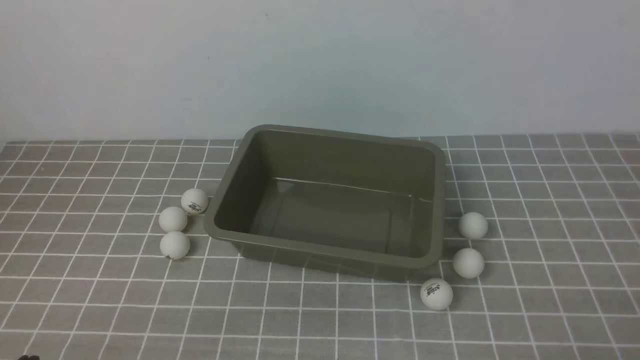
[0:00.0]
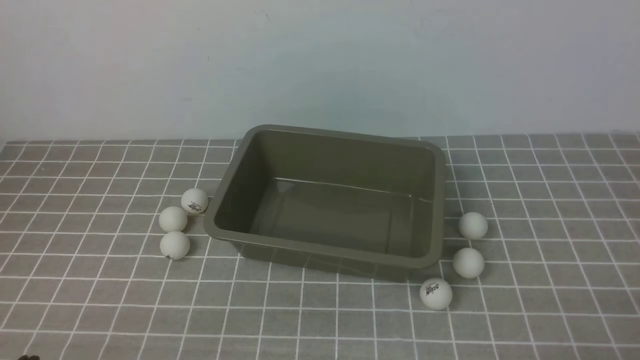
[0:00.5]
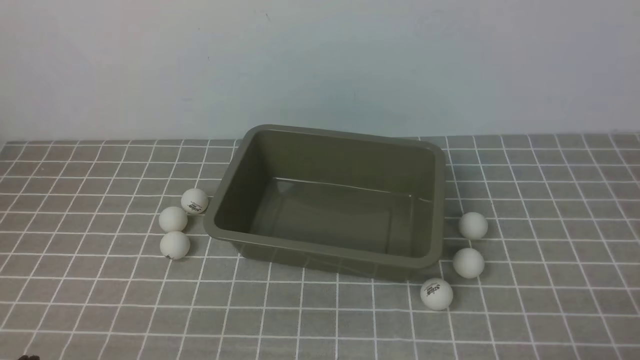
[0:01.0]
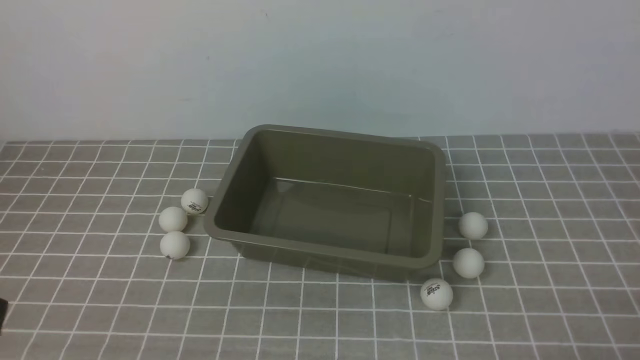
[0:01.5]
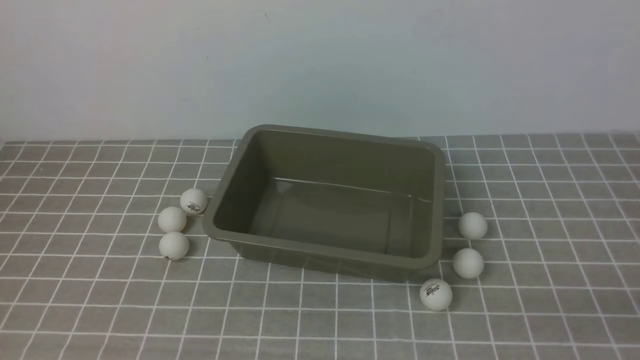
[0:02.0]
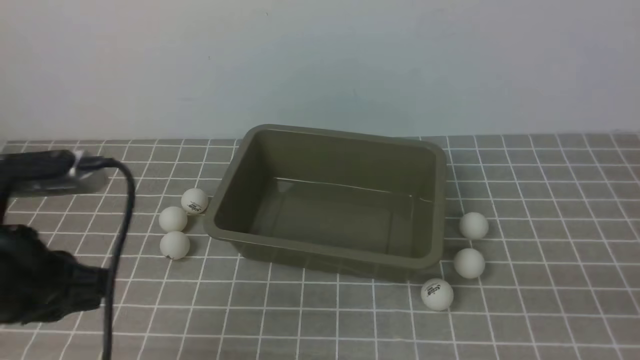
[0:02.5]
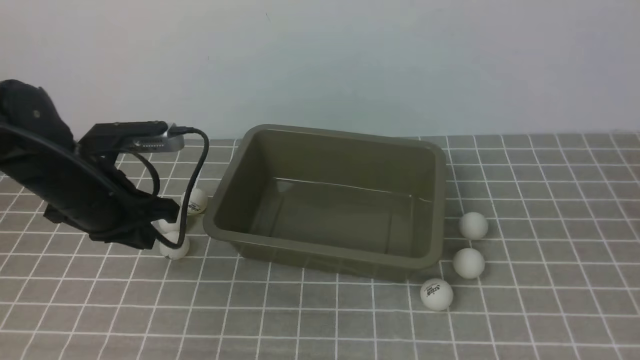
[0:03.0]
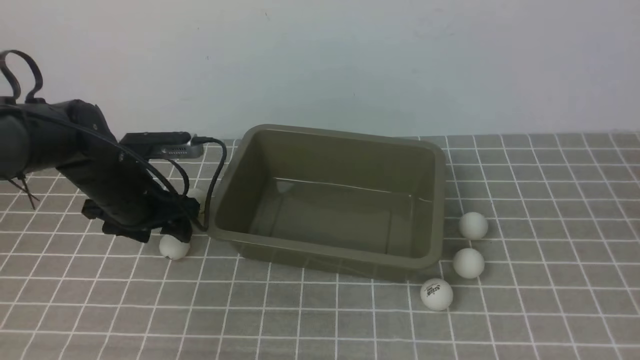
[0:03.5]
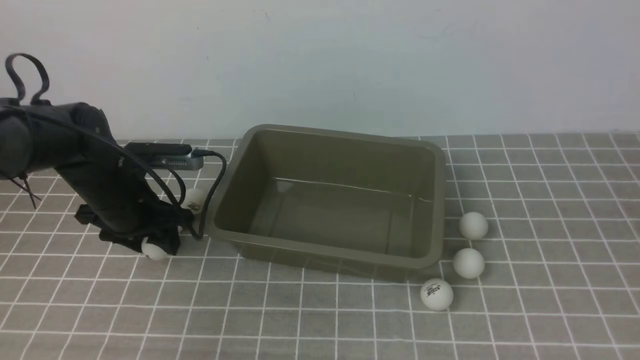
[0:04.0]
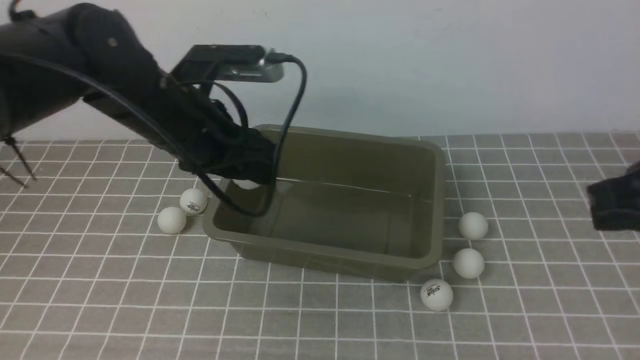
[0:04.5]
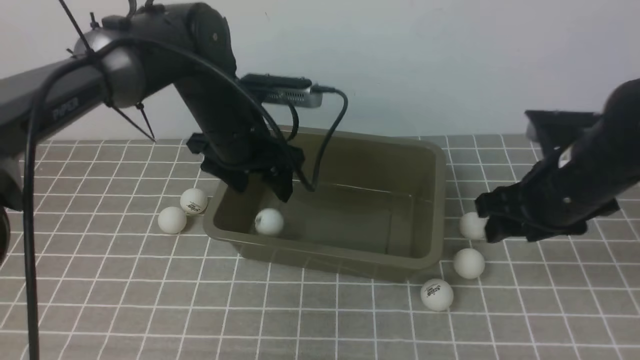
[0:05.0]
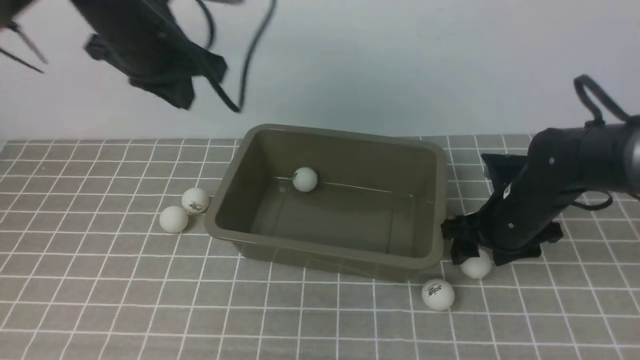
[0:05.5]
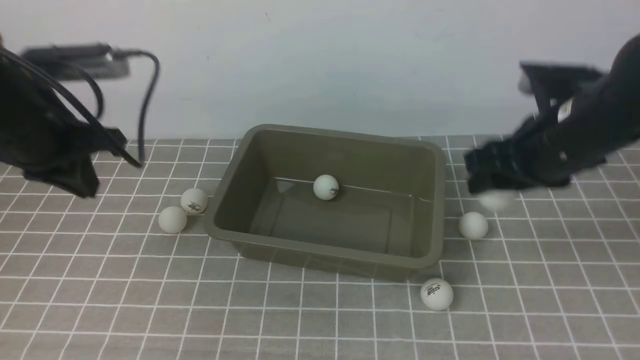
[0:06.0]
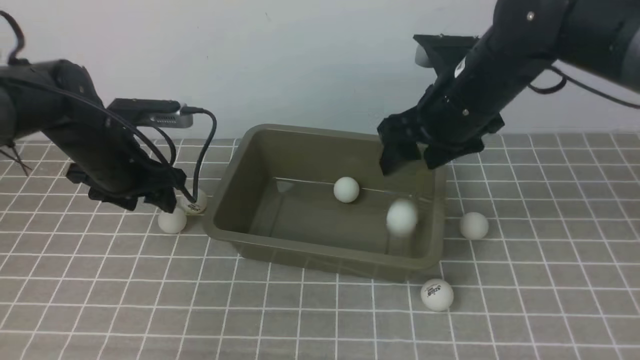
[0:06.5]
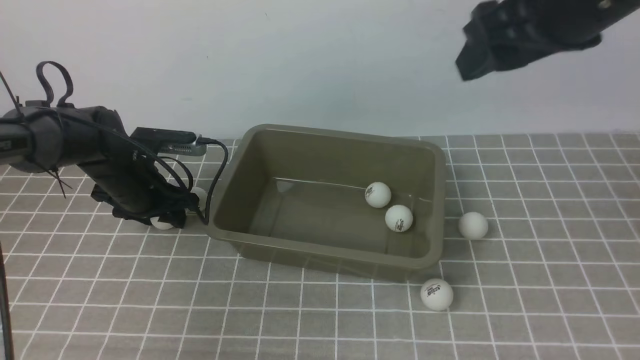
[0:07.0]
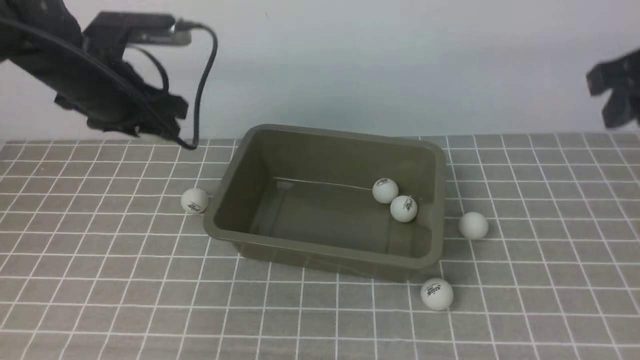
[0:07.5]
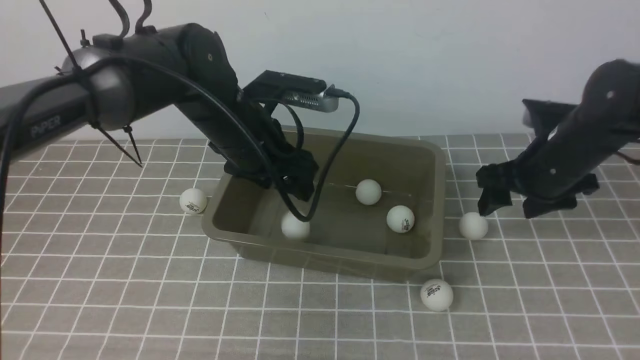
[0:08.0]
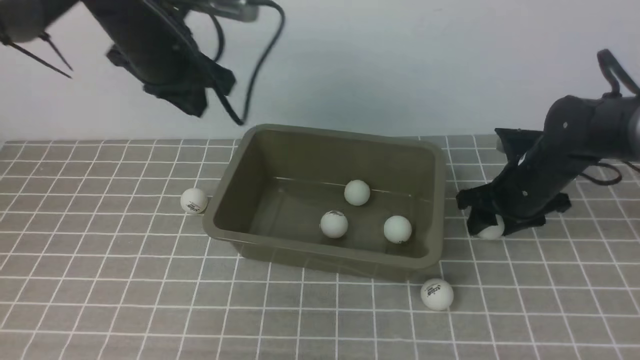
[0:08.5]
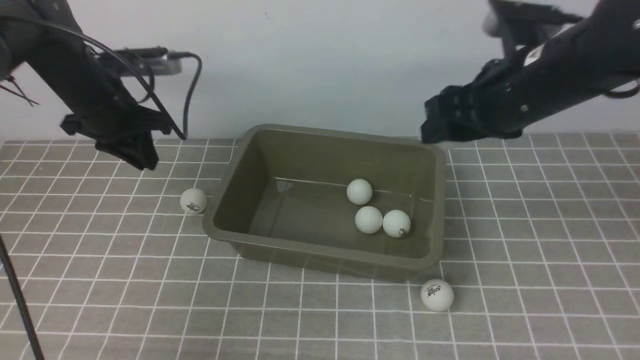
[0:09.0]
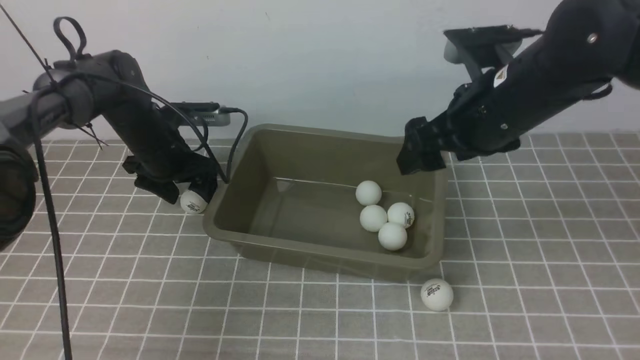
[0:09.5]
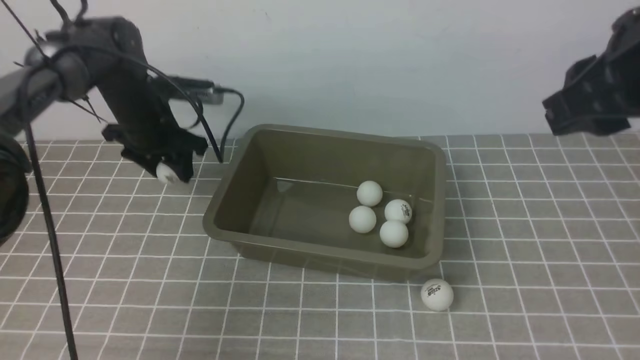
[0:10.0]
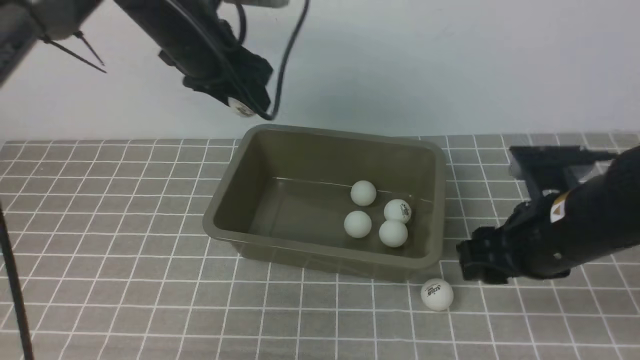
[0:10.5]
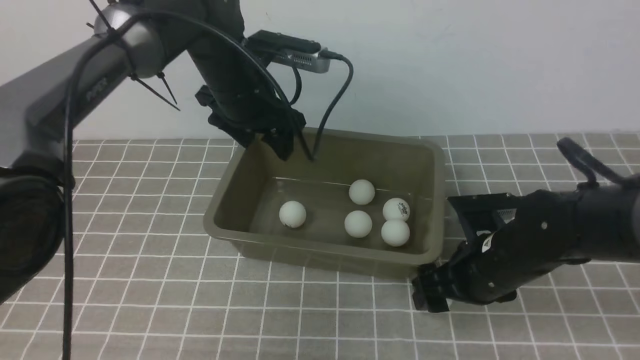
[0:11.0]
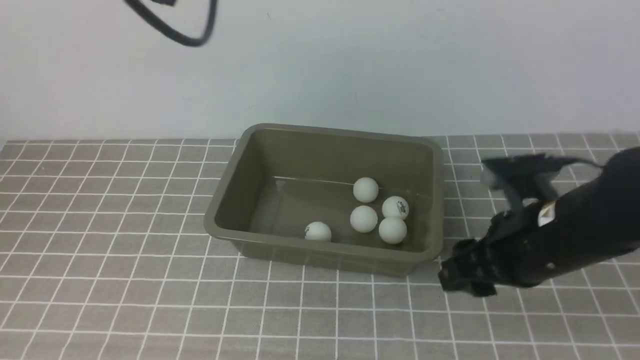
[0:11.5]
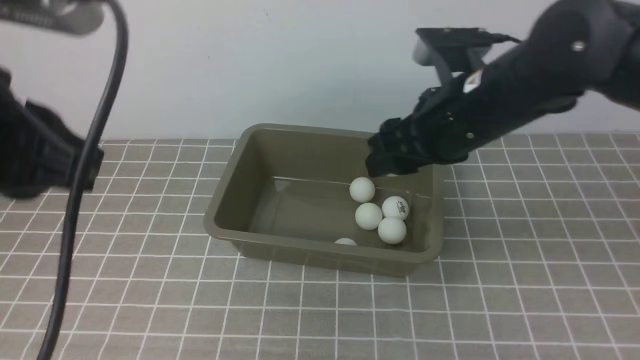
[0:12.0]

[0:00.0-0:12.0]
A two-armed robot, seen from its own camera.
Step, 0:00.0 to 0:04.0: use the left arm to clamp the table tennis ball closest to it.
Step, 0:04.5 to 0:05.0: use the left arm to put the table tennis ball into the box.
Step, 0:06.0 to 0:06.5: use the right arm to put the table tennis ball into the box.
Step, 0:07.5 to 0:08.0: use the left arm to put the table tennis ball into the box.
Step, 0:09.5 to 0:10.0: use the left arm to clamp the table tennis ball closest to it.
Step, 0:11.0 to 0:11.5: use the right arm to clamp the table tennis ball closest to it.
0:02.0 to 0:04.0: The left gripper shifts approximately 30 cm forward, and opens its fingers; the right gripper shifts roughly 20 cm upward.
0:04.0 to 0:06.0: The left gripper heads upward, covering about 10 cm, and closes its fingers; the right gripper travels forward and downward by roughly 25 cm, and opens its fingers.
0:06.0 to 0:08.0: The left gripper is displaced to the right by approximately 15 cm, and opens its fingers. The right gripper goes about 5 cm to the right, and moves some 15 cm upward and comes back.
0:08.0 to 0:10.0: The right gripper moves upward and backward, roughly 25 cm, and closes. The left gripper moves up and down over some 15 cm, changing direction 2 times, and closes, then reopens.
0:10.0 to 0:12.0: The left gripper shifts some 35 cm backward and upward, and closes its fingers. Meanwhile the right gripper heads to the left and forward, covering some 10 cm, reaches some 25 cm downward, then returns, and opens up.

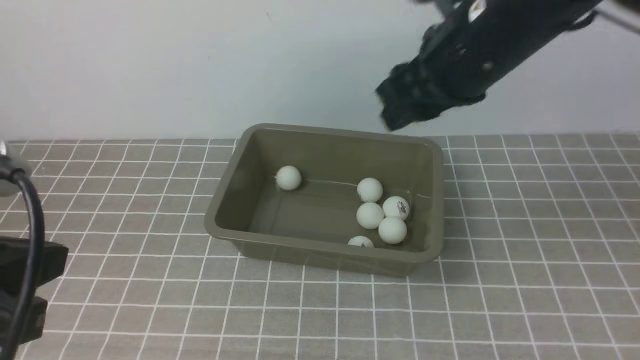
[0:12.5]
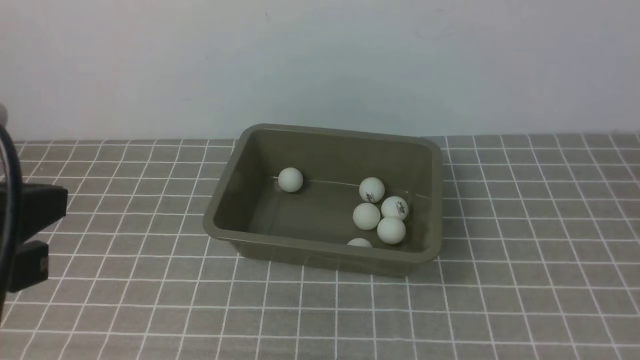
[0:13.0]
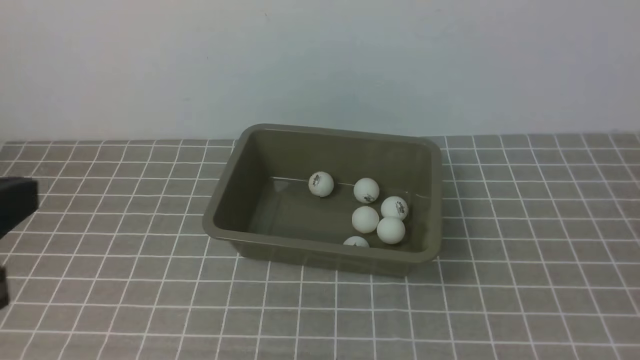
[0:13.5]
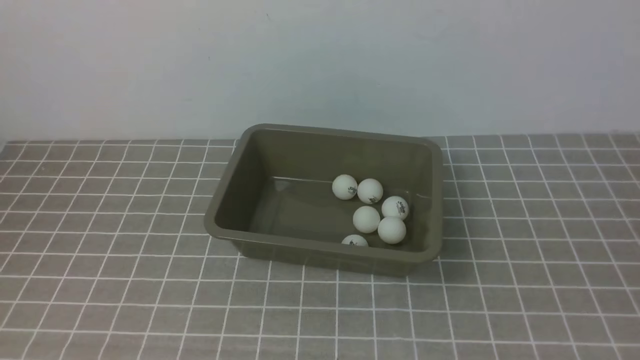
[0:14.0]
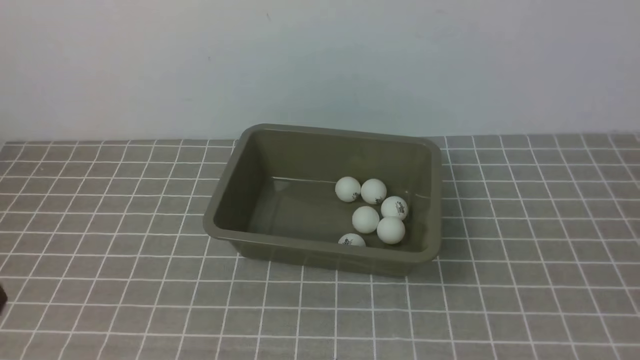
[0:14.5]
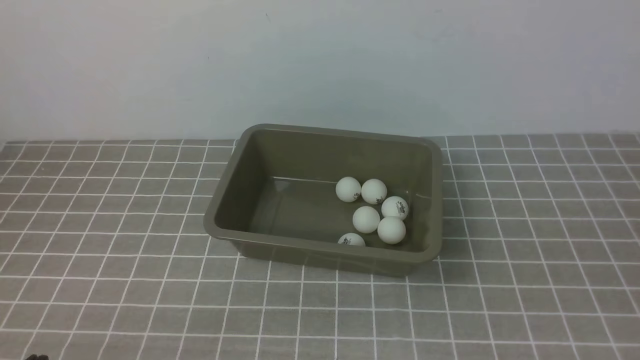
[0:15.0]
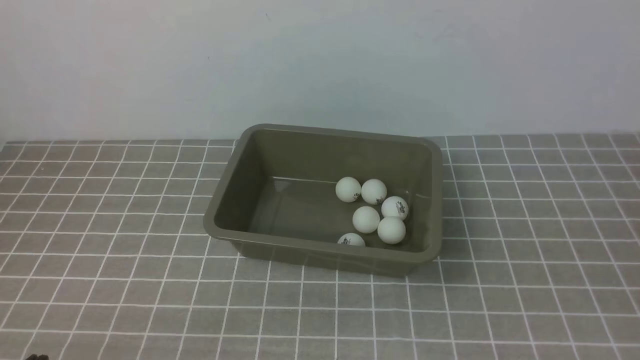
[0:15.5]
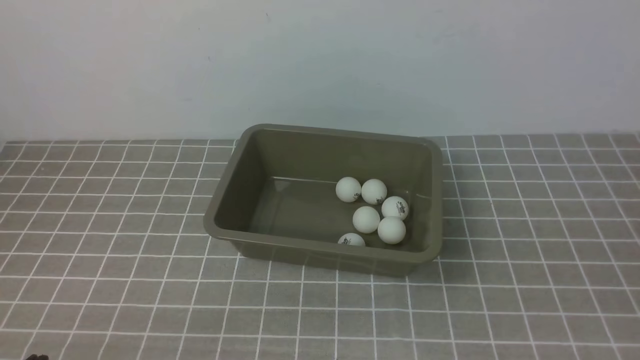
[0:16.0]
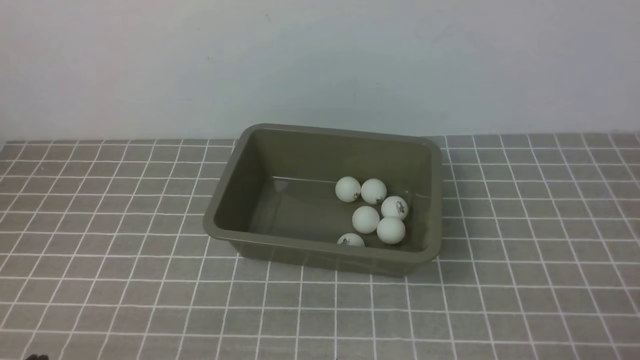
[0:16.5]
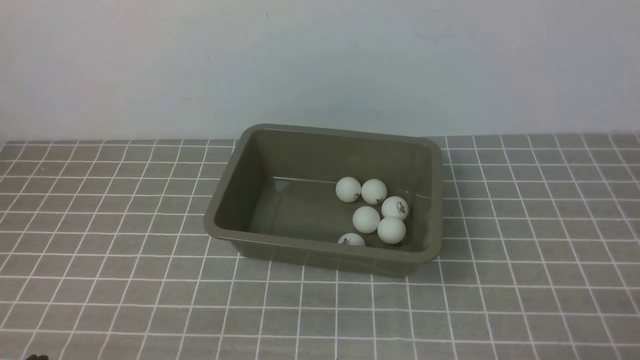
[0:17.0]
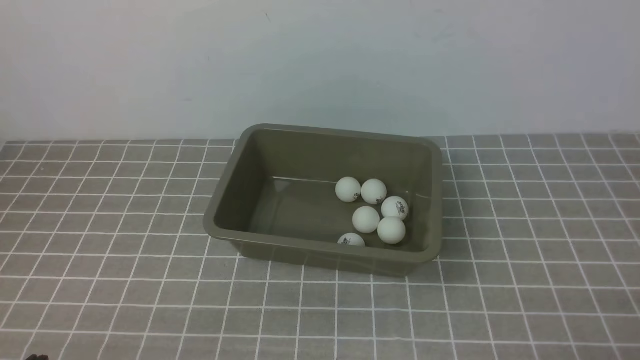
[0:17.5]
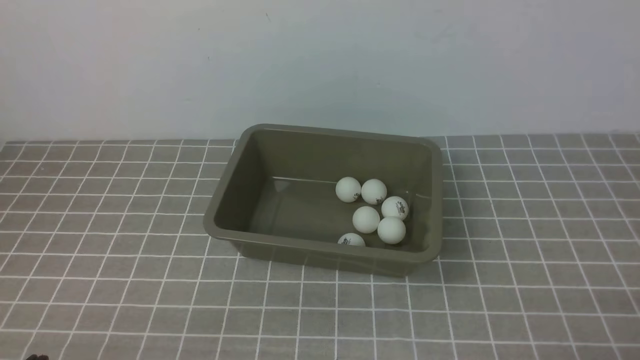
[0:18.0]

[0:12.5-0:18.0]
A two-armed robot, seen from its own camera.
0:12.5 to 0:14.5: The left gripper heads downward and backward, covering some 10 cm. Meanwhile the right gripper heads backward and to the right, covering some 30 cm, and closes up.

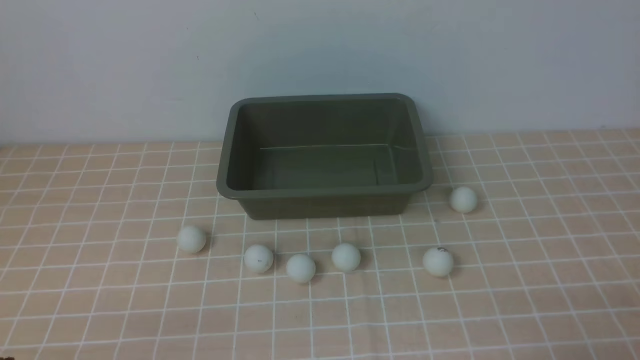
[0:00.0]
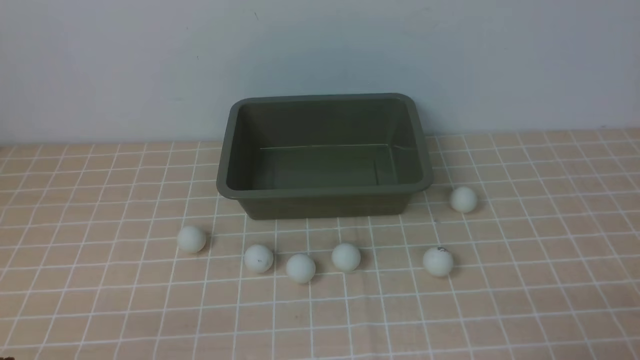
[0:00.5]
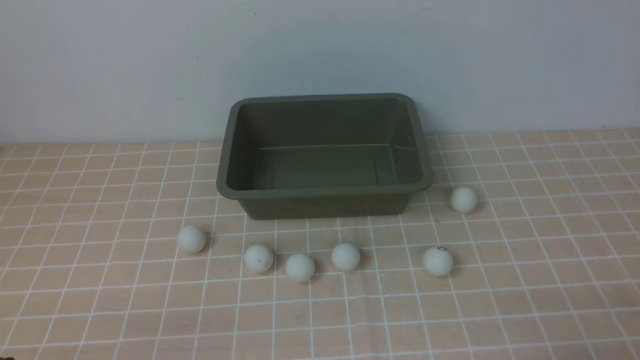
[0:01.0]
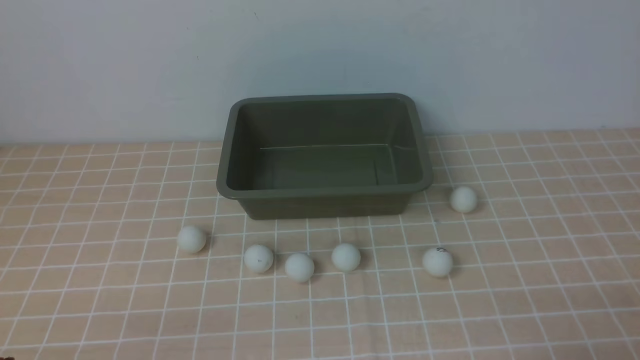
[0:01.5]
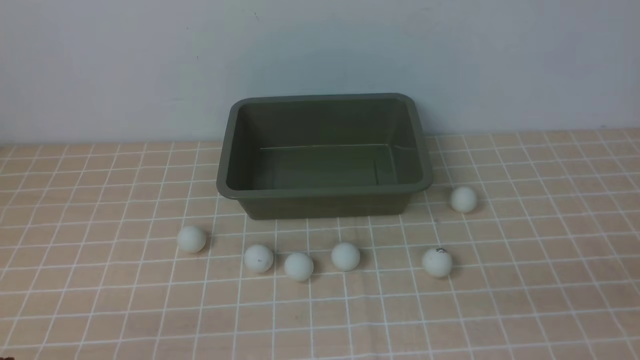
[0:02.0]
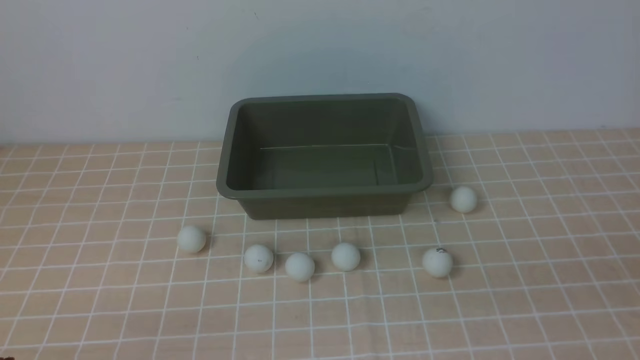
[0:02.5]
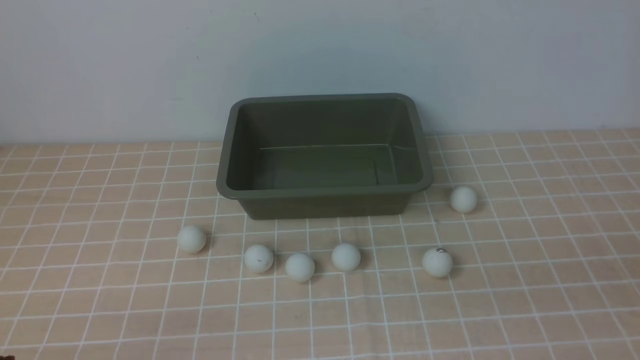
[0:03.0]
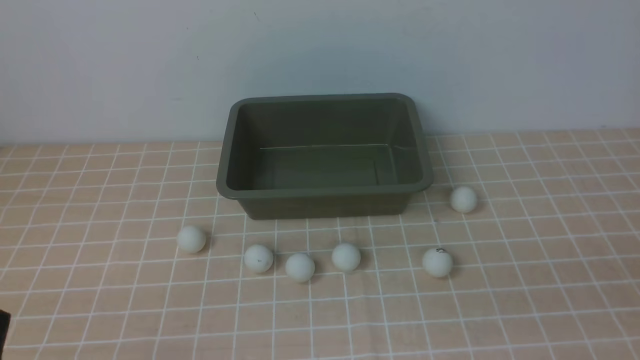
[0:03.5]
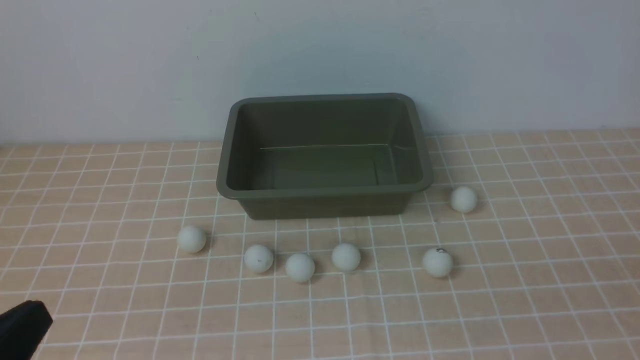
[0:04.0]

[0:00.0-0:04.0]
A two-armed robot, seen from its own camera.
0:02.0 to 0:04.0: The left gripper heads upward, covering roughly 10 cm.
